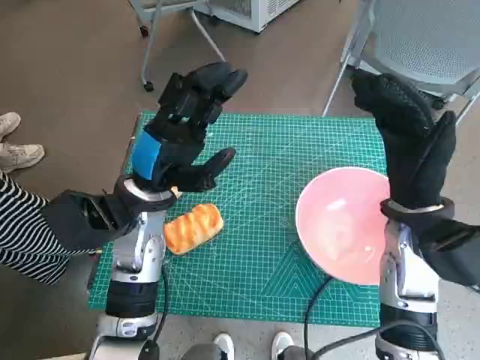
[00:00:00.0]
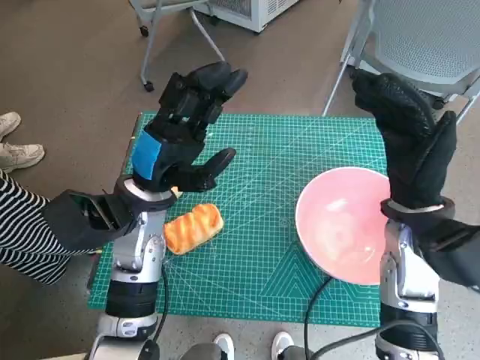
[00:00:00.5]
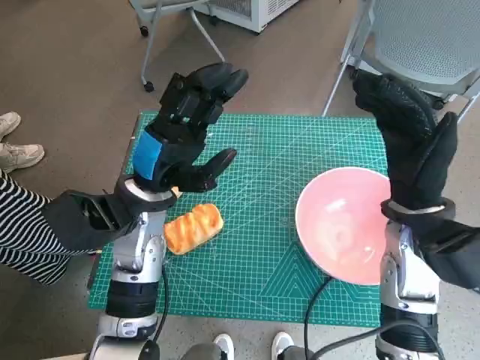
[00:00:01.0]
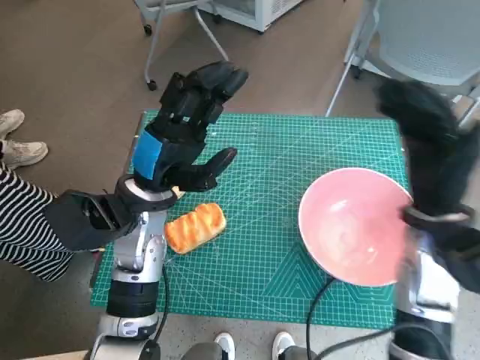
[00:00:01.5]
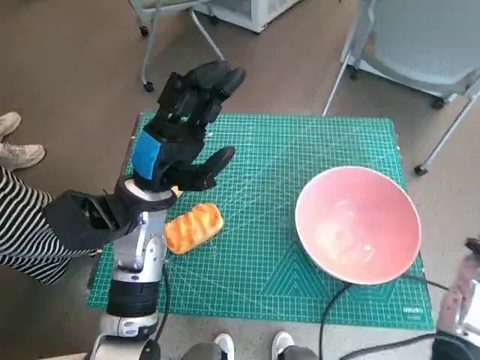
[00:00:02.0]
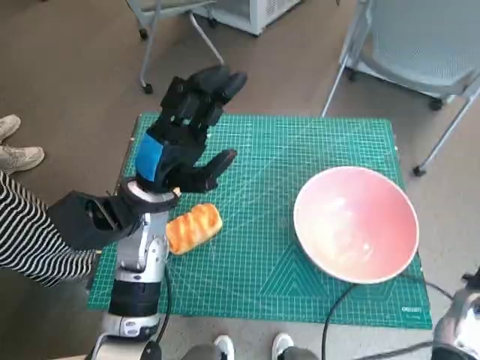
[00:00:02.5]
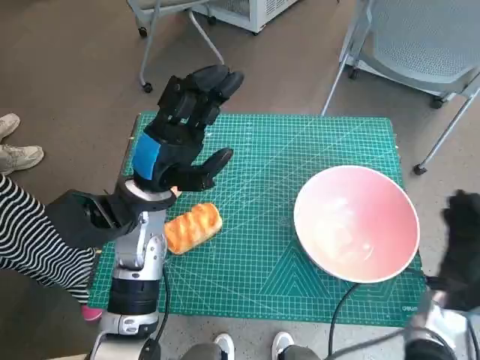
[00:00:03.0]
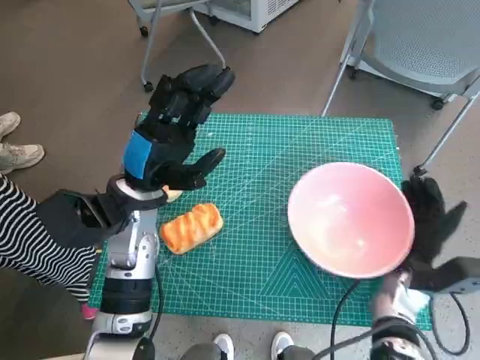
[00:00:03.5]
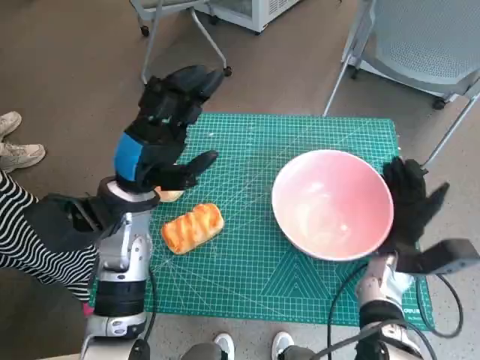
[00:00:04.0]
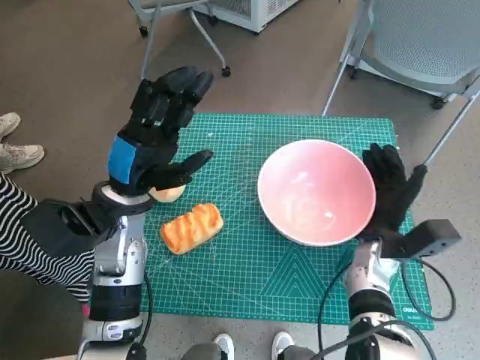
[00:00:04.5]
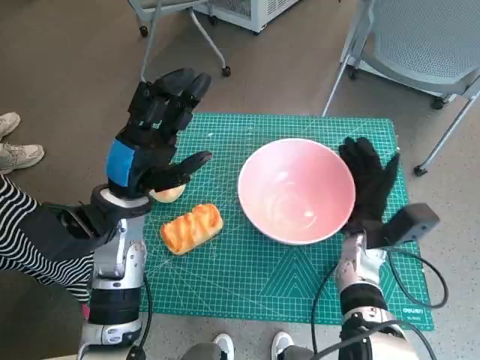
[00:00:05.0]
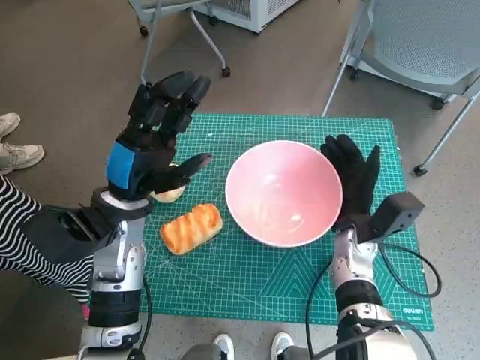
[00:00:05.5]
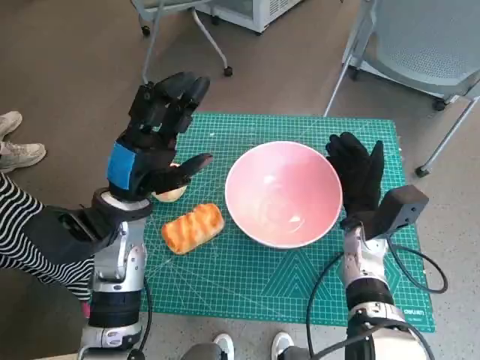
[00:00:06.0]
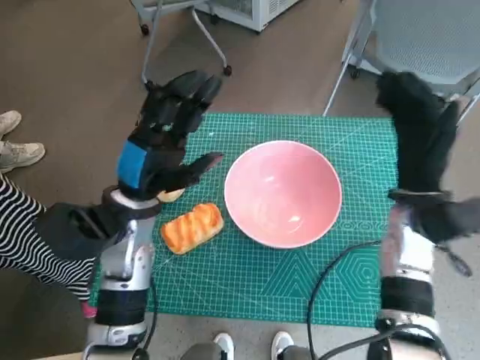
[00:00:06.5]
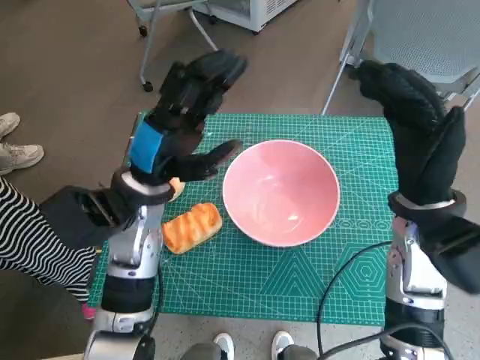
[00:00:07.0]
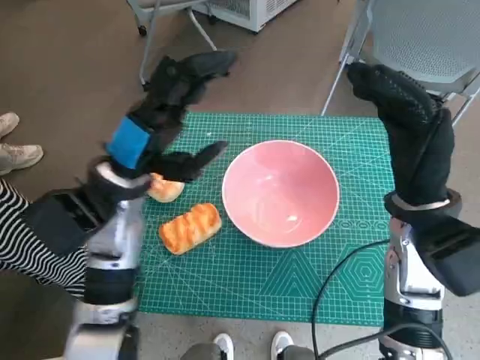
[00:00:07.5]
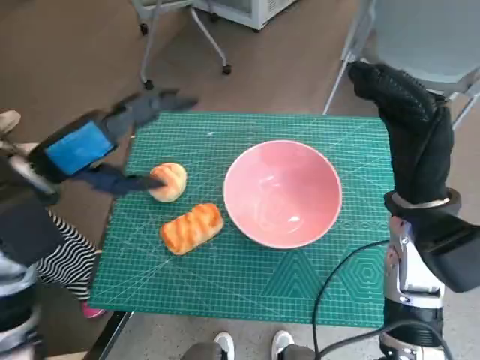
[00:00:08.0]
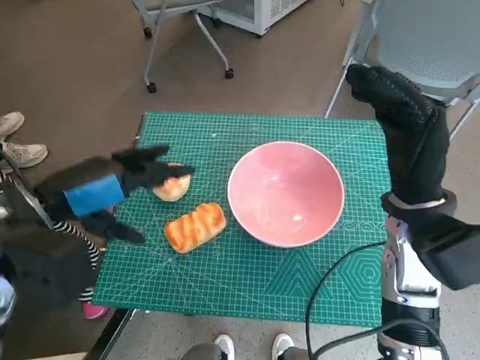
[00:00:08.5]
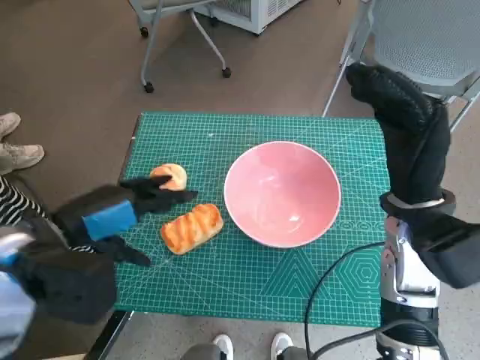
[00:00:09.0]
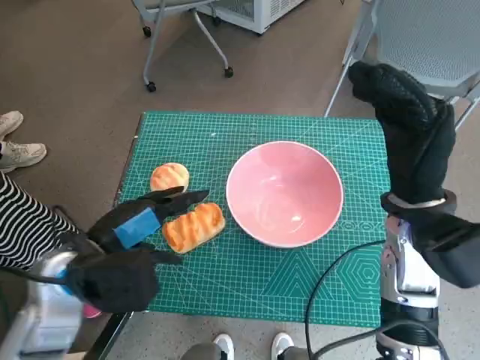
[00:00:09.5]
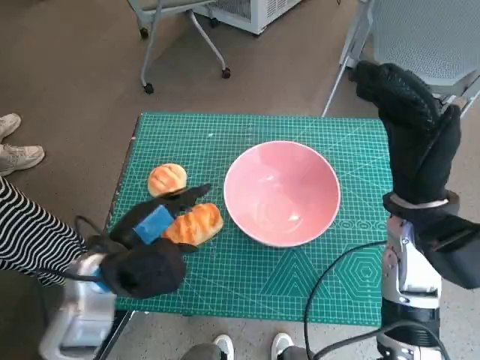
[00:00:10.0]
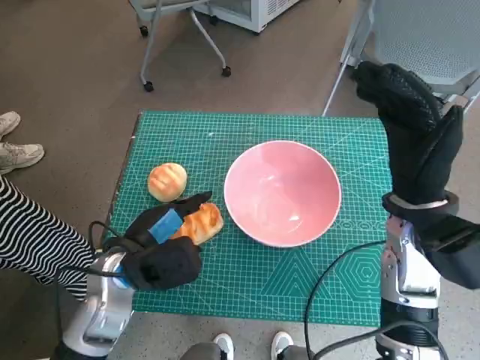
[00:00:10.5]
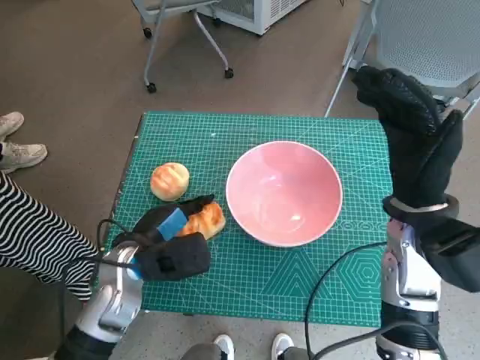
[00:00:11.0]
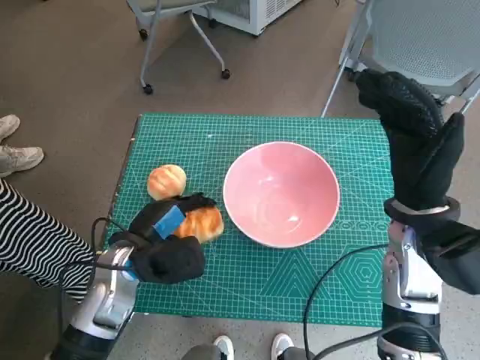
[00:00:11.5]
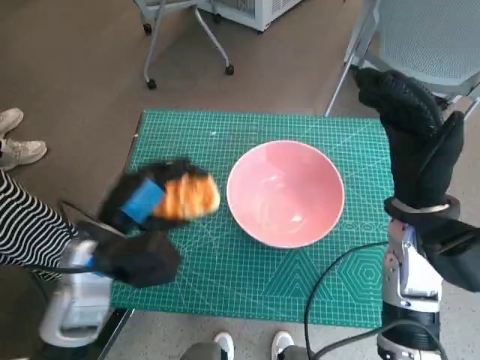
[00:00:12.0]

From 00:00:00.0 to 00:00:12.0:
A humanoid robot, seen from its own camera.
Task of the whole recording: Push the bowl into the center of the table and put the bread into the bowl.
Step, from 00:00:00.0 to 00:00:06.0: Move the pink bowl to the center of table with right hand.
Step, from 00:00:06.5 to 00:00:11.0: Grasp the long bread with left hand.
From 00:00:02.0 to 00:00:04.0: The right hand shifts approximately 15 cm downward and to the left.
From 00:00:04.0 to 00:00:06.0: The right hand shifts by roughly 5 cm.
From 00:00:06.0 to 00:00:08.0: The right hand moves upward, roughly 15 cm; the left hand goes approximately 10 cm upward and to the left.
From 00:00:08.0 to 00:00:10.0: The left hand goes roughly 10 cm downward.

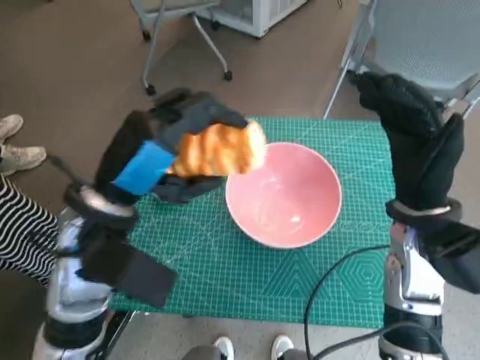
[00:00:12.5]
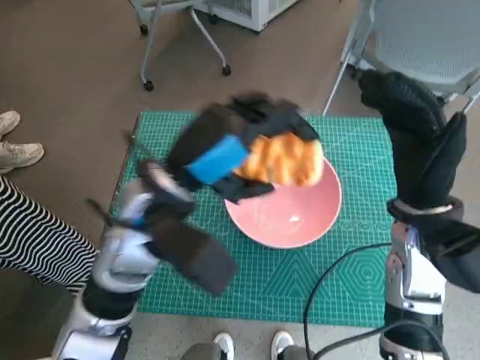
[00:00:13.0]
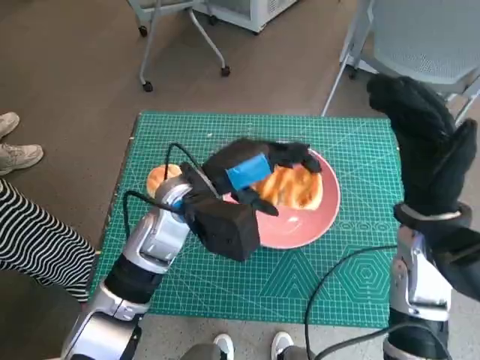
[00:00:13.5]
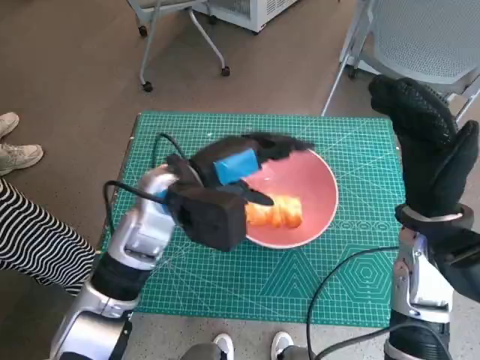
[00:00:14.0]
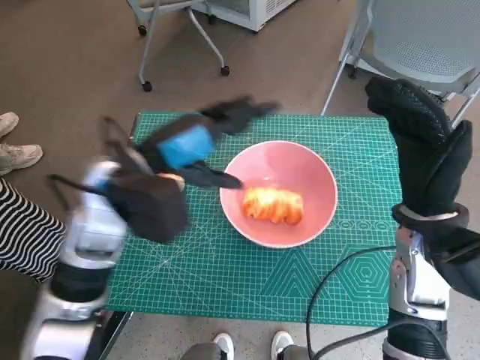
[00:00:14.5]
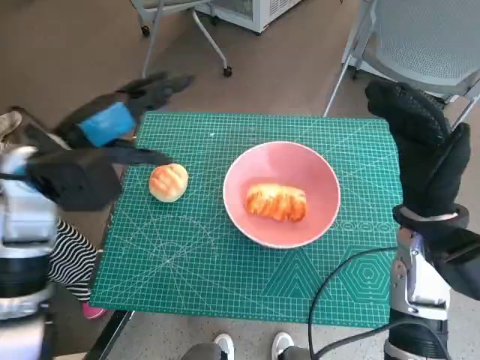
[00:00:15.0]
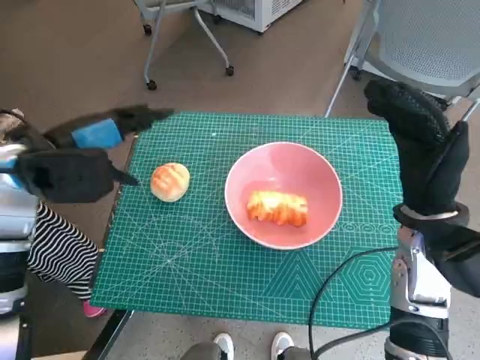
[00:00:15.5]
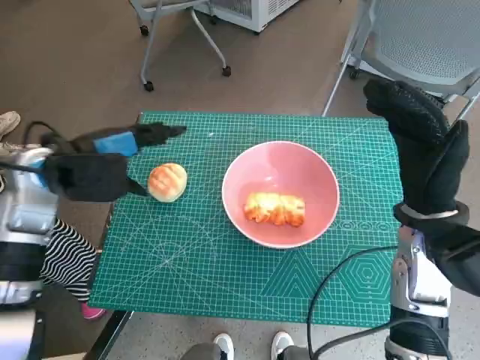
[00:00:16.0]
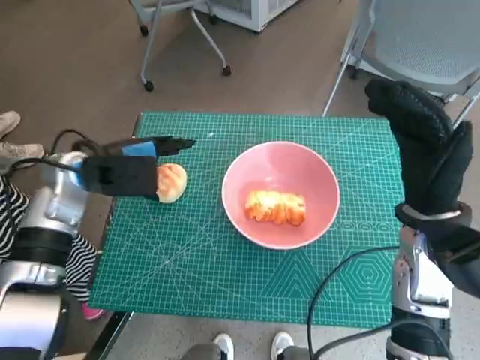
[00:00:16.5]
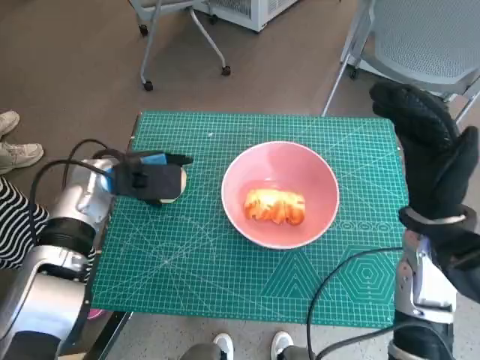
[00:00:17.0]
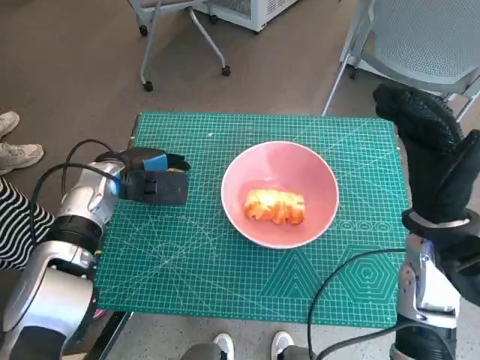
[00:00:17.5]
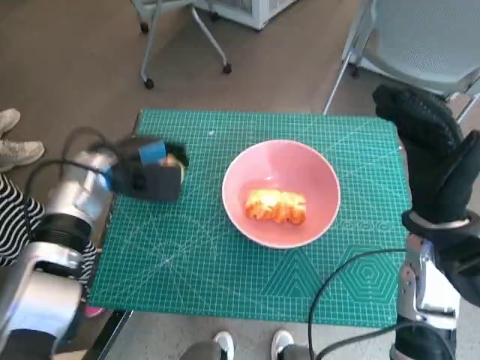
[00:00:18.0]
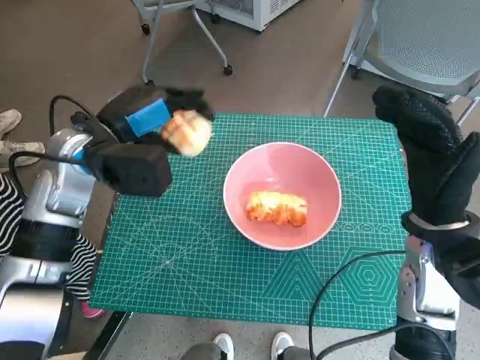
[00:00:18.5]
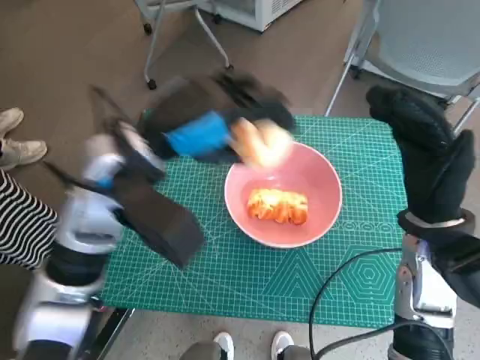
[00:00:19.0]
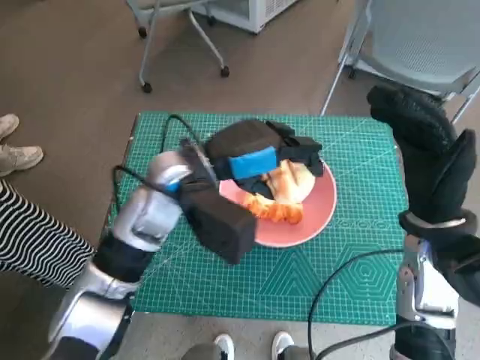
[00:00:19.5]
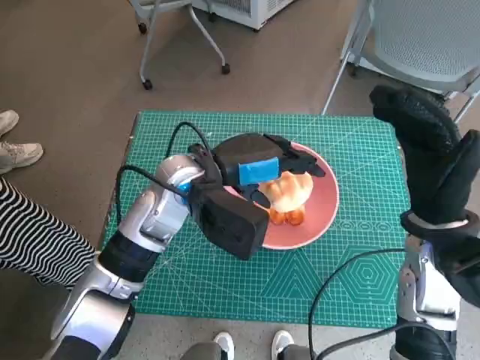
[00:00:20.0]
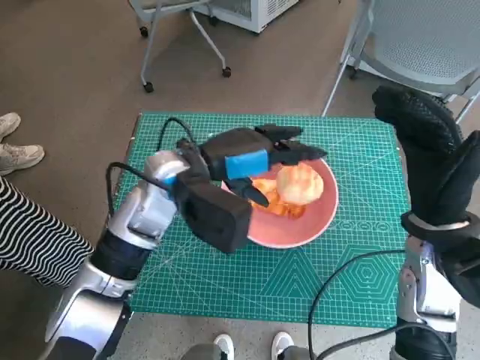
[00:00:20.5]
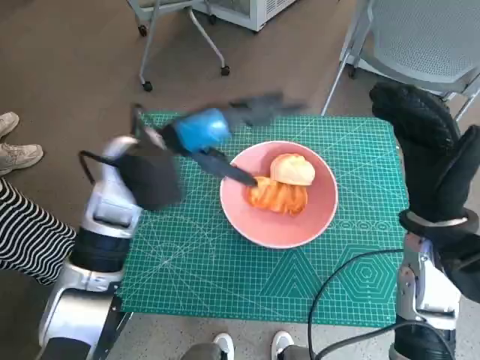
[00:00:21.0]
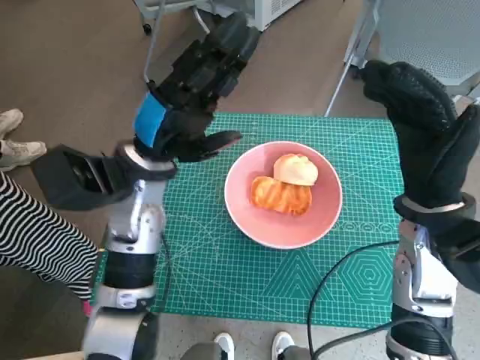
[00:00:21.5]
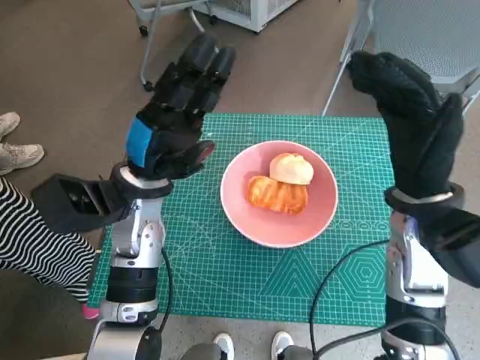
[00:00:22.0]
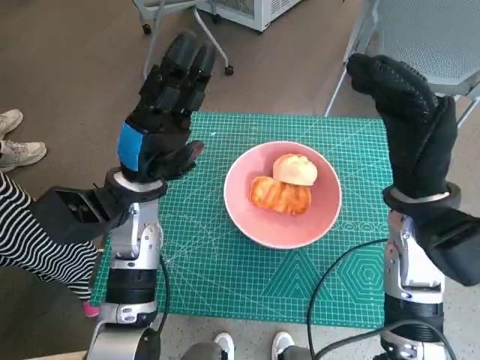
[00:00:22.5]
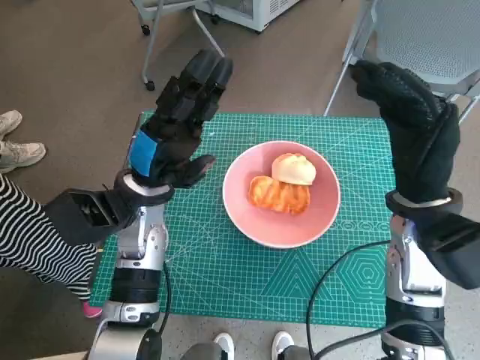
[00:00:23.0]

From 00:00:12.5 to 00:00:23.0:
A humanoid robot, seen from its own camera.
Task of the whole recording: Push the bowl into the center of the table and put the bread into the bowl.
Step, from 00:00:14.0 to 00:00:17.5: Grasp the round bread with left hand.
Step, from 00:00:18.0 to 00:00:20.5: Place the round bread in pink bowl with left hand.
From 00:00:12.5 to 00:00:14.5: The left hand is displaced forward by some 5 cm.
From 00:00:14.5 to 00:00:16.5: The left hand is displaced to the left by roughly 10 cm.
From 00:00:16.5 to 00:00:19.0: The left hand shifts approximately 15 cm to the right and upward.
From 00:00:21.0 to 00:00:23.0: The left hand moves downward, some 5 cm.

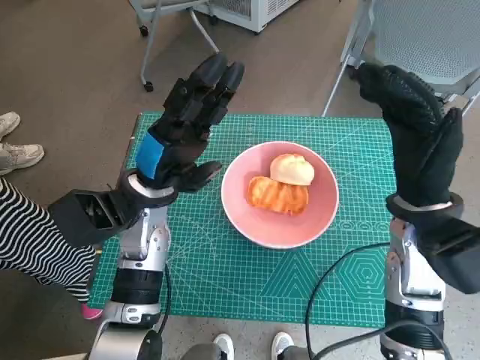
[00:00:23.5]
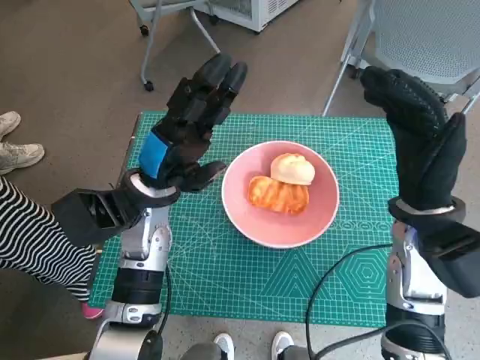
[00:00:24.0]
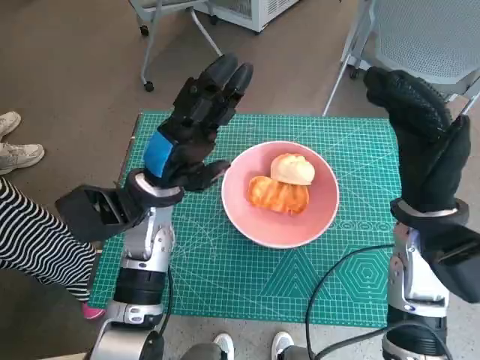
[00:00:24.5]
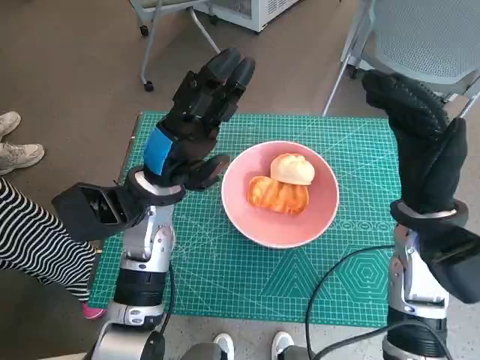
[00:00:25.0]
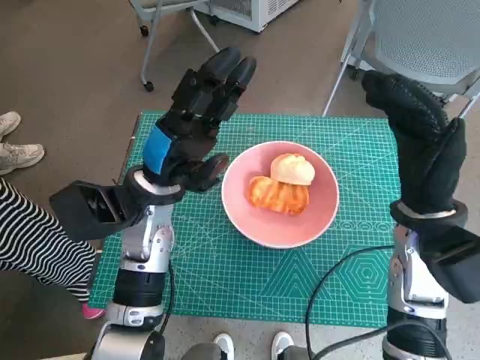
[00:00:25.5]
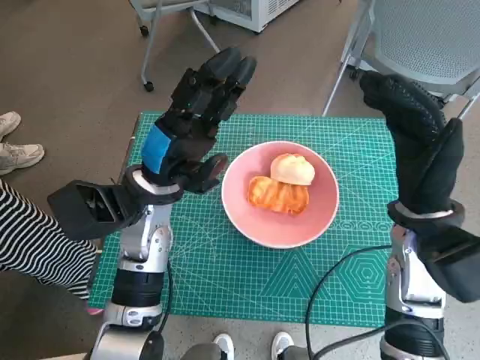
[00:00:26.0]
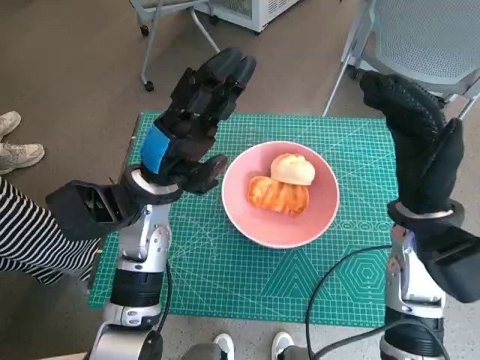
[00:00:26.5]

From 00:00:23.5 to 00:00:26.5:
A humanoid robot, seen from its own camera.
Task of the whole recording: Push the bowl into the center of the table and put the bread into the bowl.
From 00:00:23.5 to 00:00:25.0: The two hands keep their place.
From 00:00:25.0 to 00:00:26.5: Neither hand changes place.
